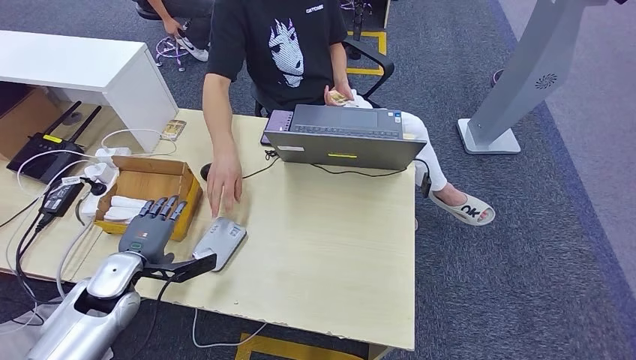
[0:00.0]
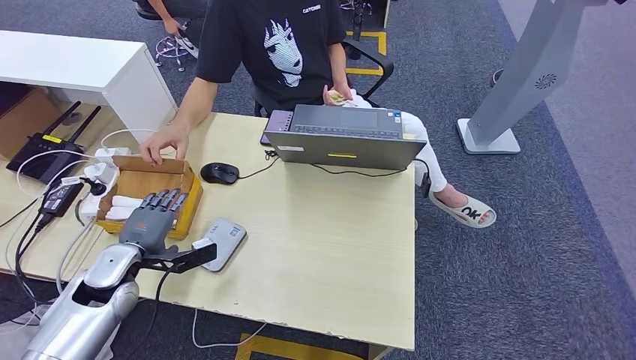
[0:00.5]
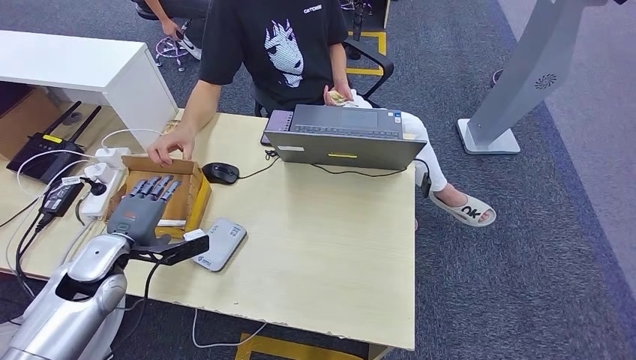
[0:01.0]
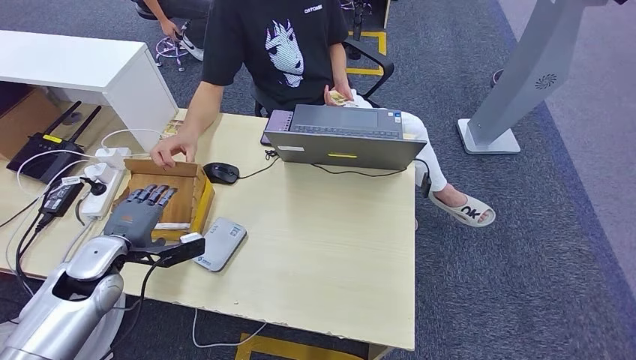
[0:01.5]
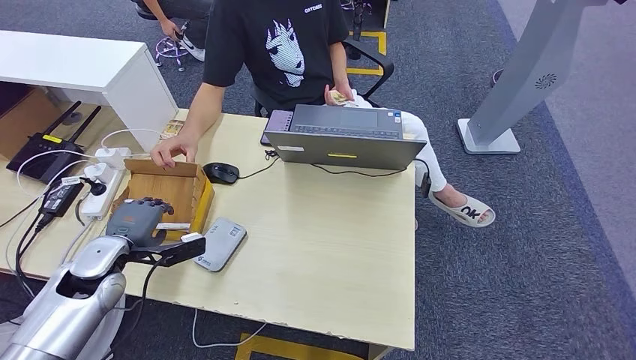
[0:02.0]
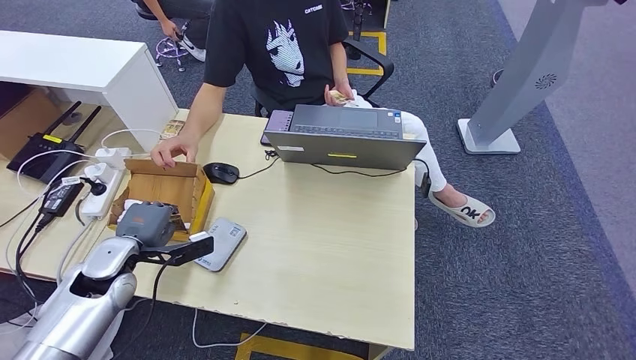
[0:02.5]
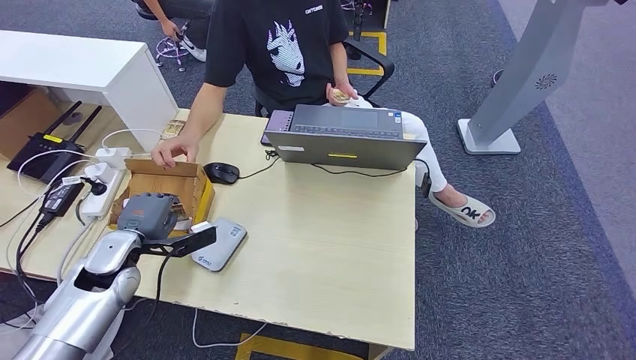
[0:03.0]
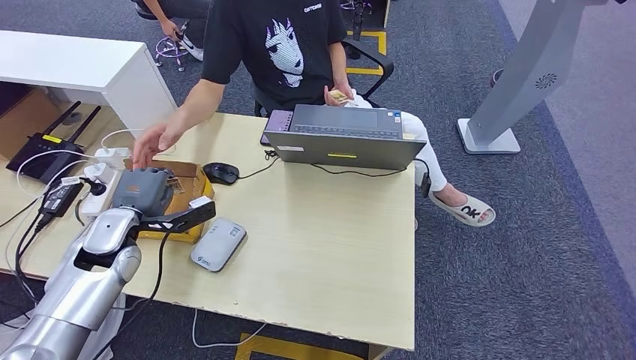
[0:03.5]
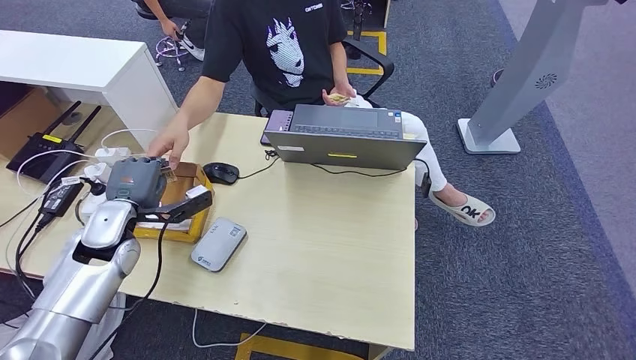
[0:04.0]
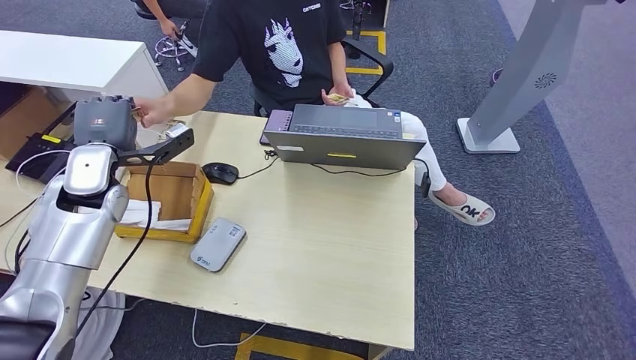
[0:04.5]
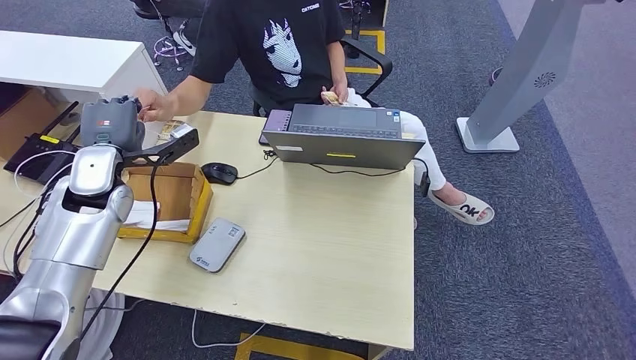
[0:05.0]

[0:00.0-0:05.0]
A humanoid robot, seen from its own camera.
Step, 0:00.0 to 0:03.0: Pick up the room key from the key card box.
Step, 0:03.5 to 0:05.0: Hand the room key to the person.
0:00.0 to 0:02.5: The hands make only small movements.
0:02.5 to 0:05.0: The left hand moves upward and forward, approximately 15 cm.
